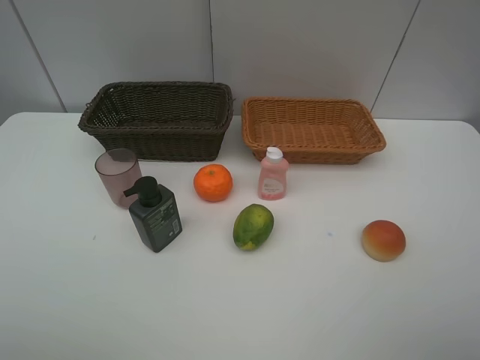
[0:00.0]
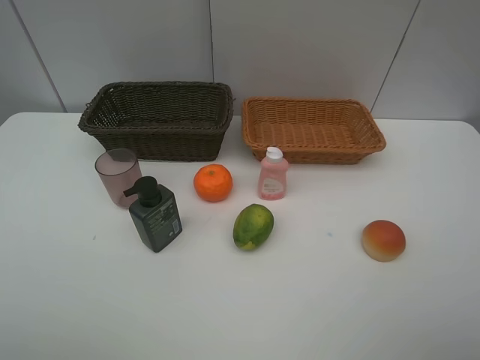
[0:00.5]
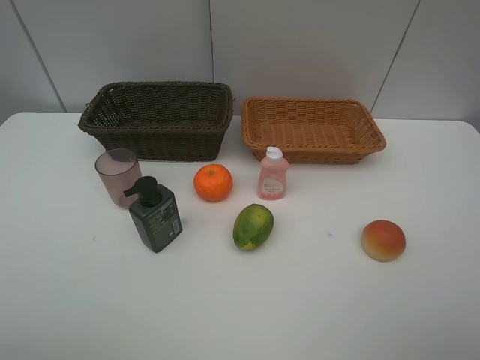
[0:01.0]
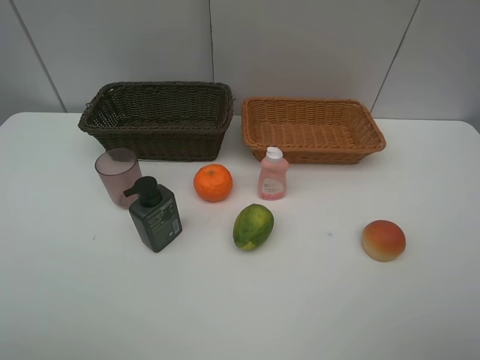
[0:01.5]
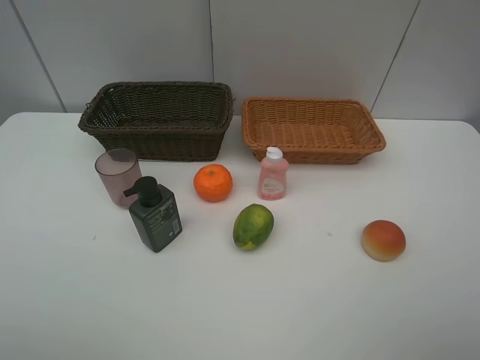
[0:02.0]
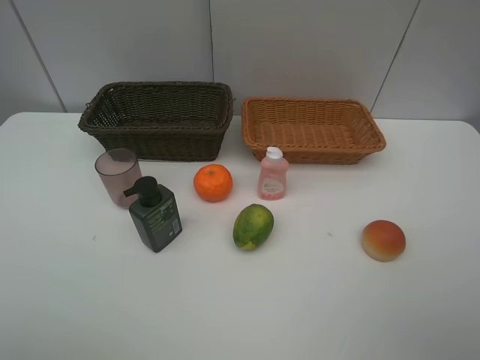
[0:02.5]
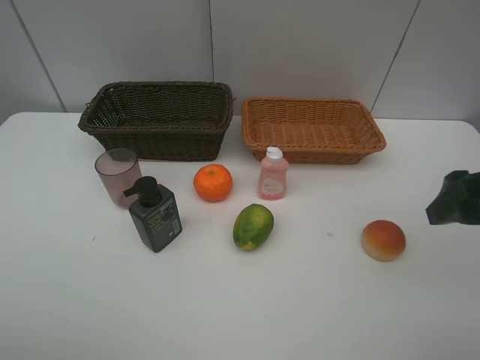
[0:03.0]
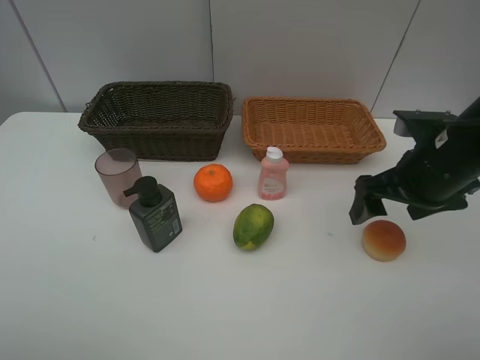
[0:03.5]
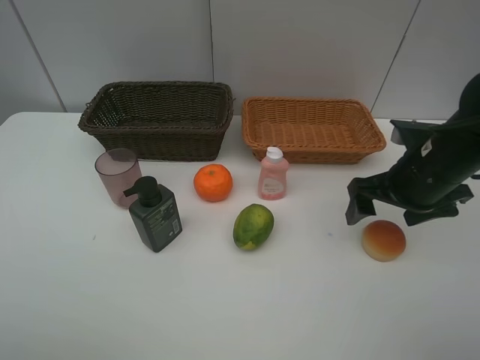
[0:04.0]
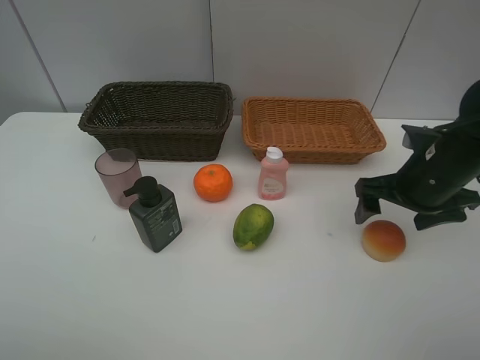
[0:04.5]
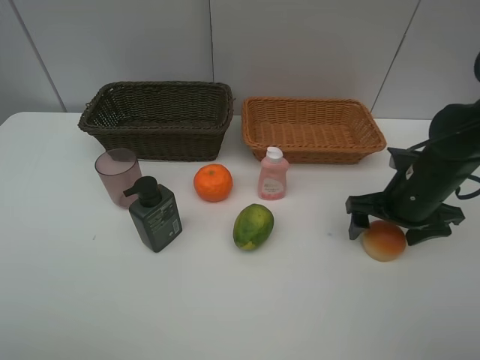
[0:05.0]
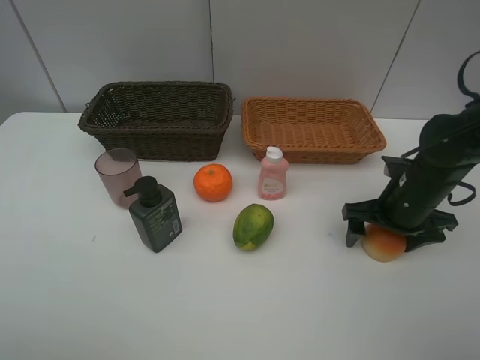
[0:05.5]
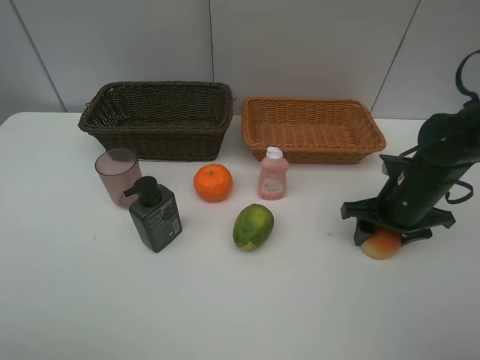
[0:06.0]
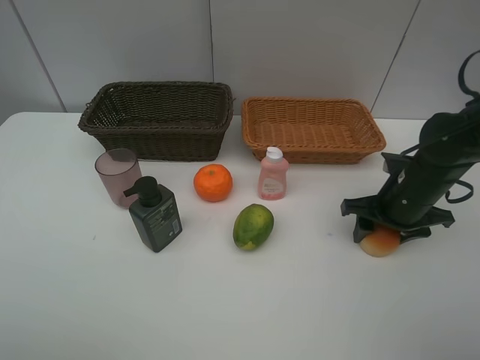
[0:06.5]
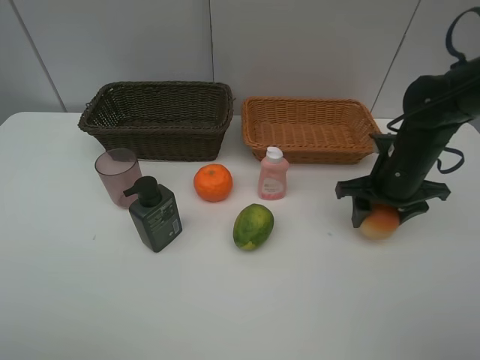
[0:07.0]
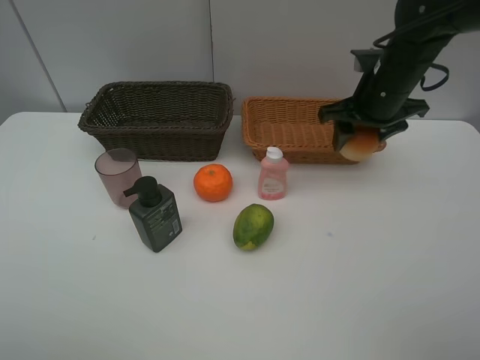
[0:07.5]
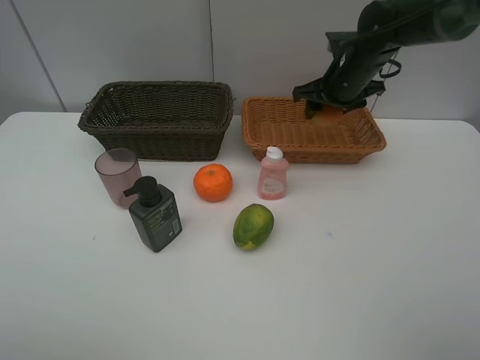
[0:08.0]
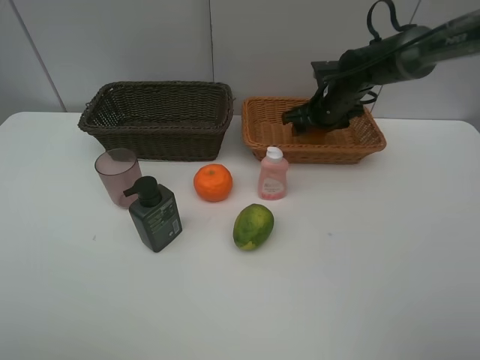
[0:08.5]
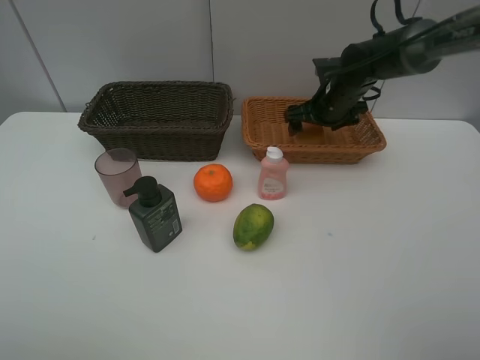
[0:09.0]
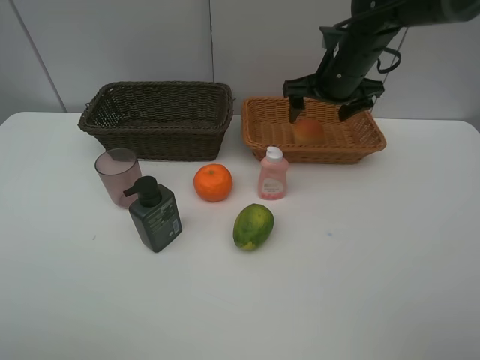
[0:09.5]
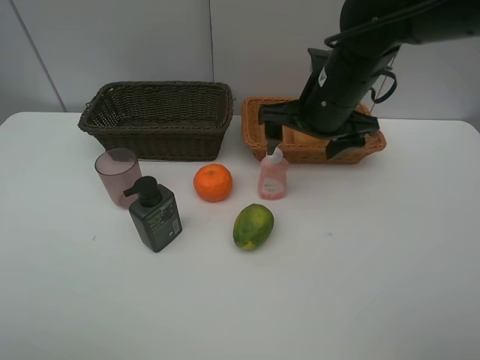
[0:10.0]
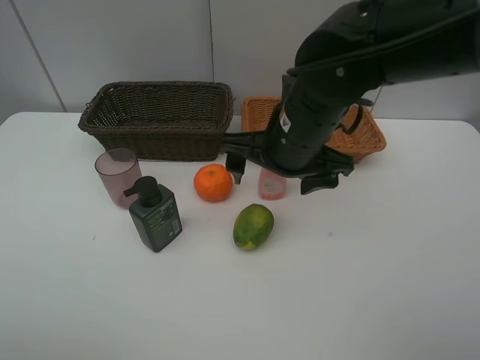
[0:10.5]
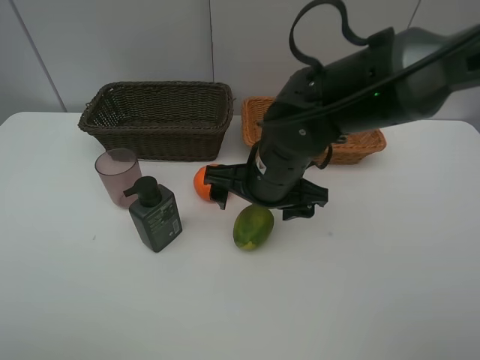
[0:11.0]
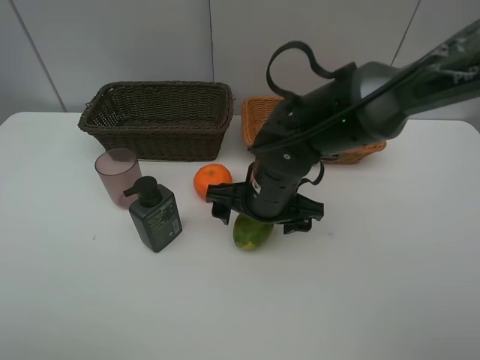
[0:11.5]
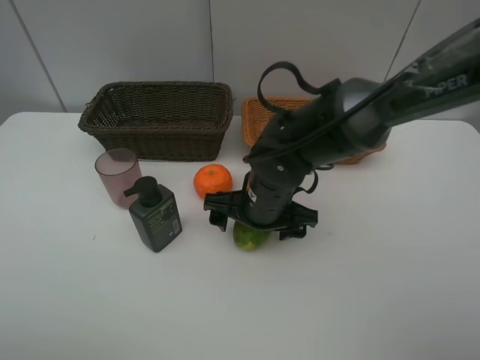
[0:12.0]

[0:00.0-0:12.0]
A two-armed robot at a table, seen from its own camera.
Task of the whole recording: place multiple objects separately in different baskets.
0:00.0 to 0:02.0: Both grippers stay put.
0:02.0 to 0:04.0: The right gripper goes approximately 30 cm forward and downward.
0:04.0 to 0:06.0: The right gripper is displaced downward by some 5 cm, and closes.
0:06.0 to 0:08.0: The right gripper shifts about 20 cm forward and upward.
0:08.0 to 0:10.0: The right gripper travels backward and to the left by approximately 15 cm, and opens.
0:10.0 to 0:12.0: The right gripper shifts some 15 cm downward and to the left.

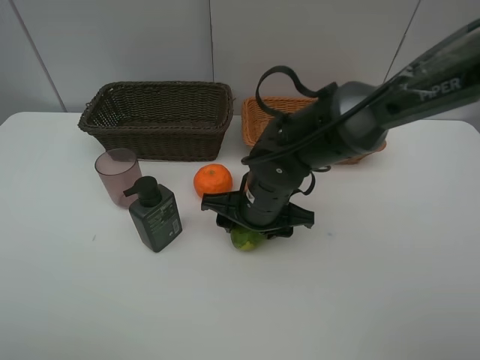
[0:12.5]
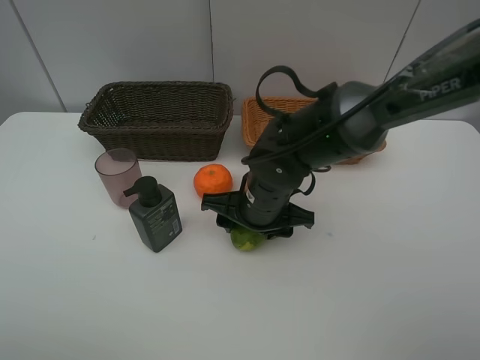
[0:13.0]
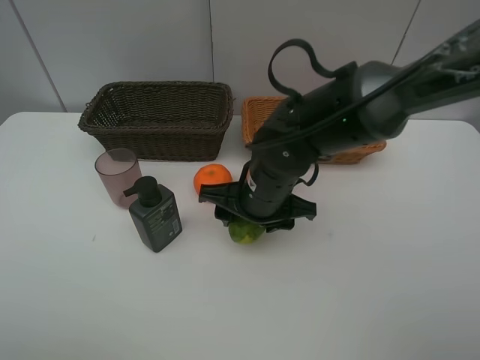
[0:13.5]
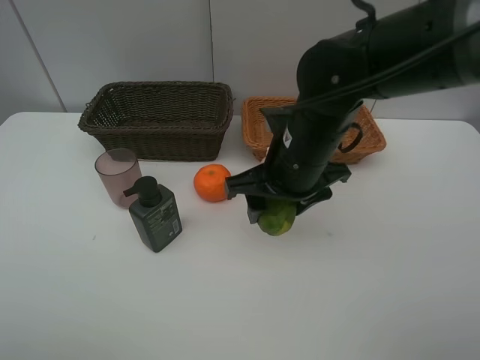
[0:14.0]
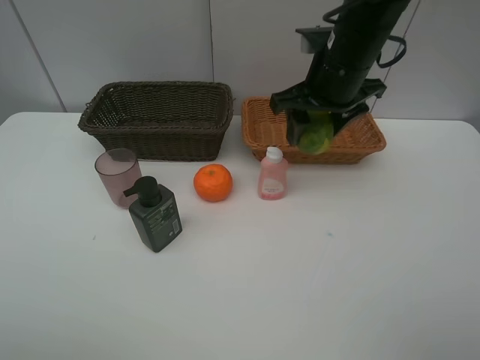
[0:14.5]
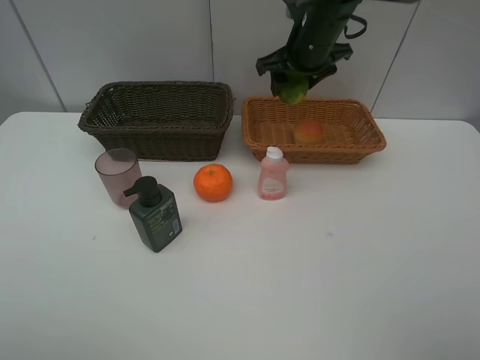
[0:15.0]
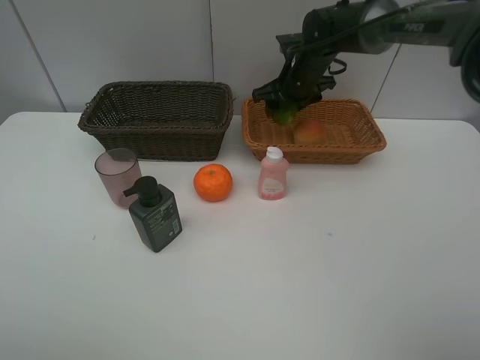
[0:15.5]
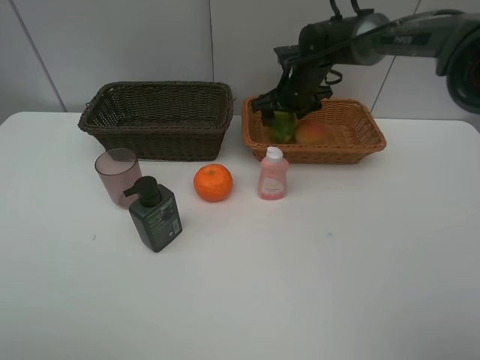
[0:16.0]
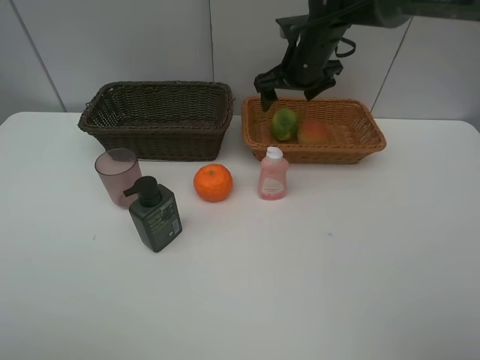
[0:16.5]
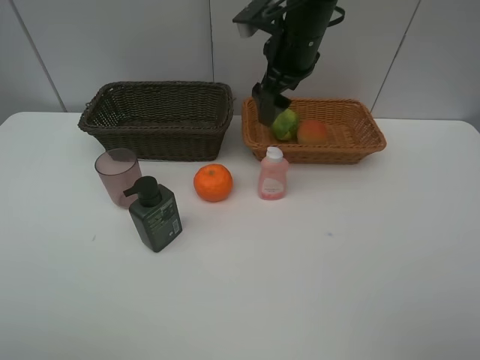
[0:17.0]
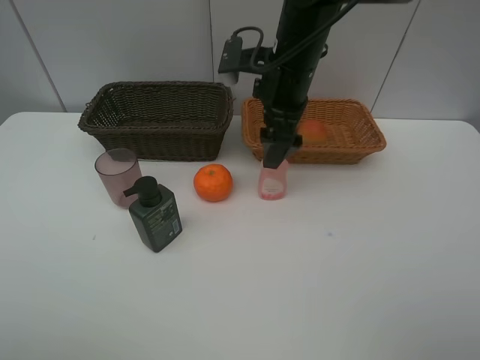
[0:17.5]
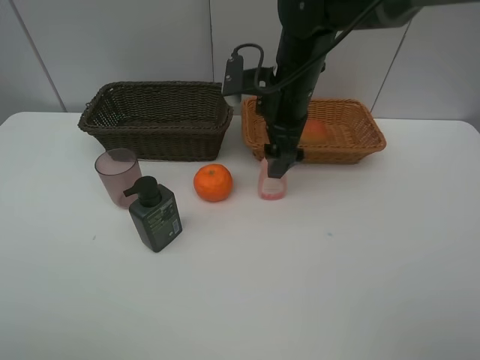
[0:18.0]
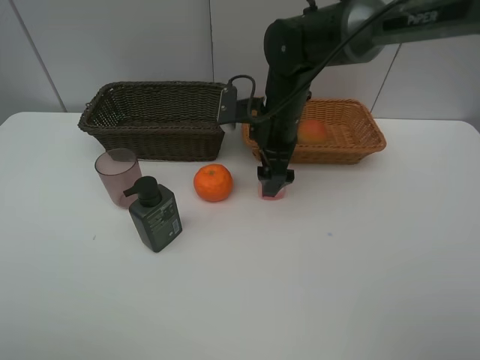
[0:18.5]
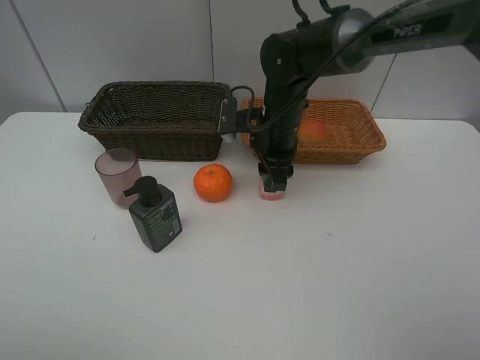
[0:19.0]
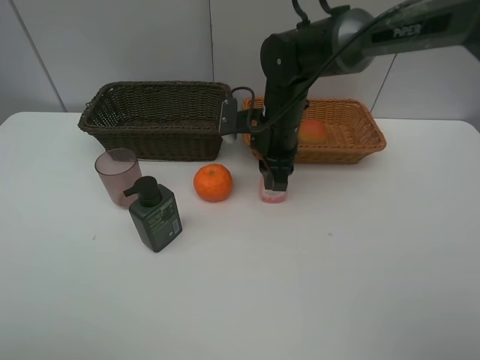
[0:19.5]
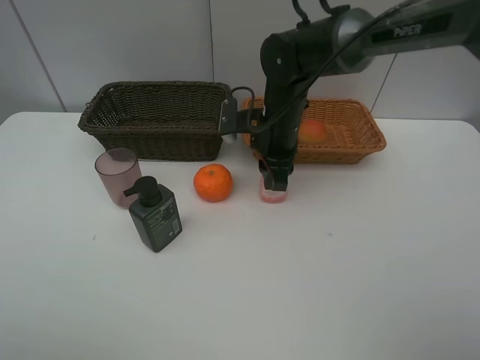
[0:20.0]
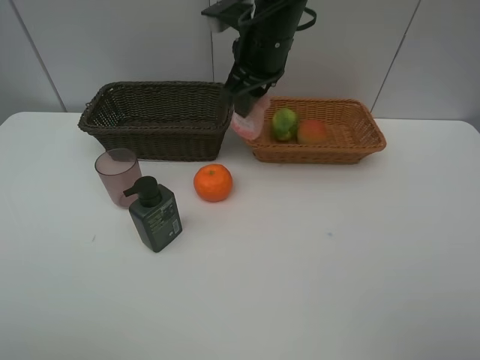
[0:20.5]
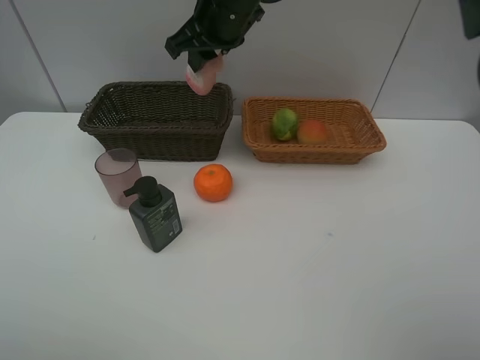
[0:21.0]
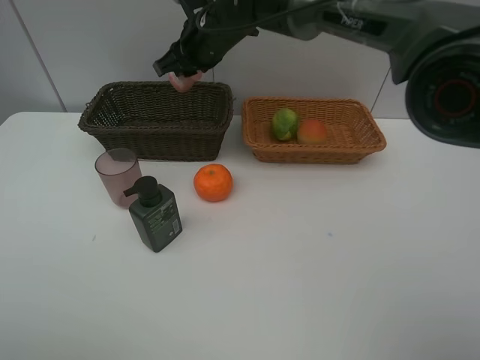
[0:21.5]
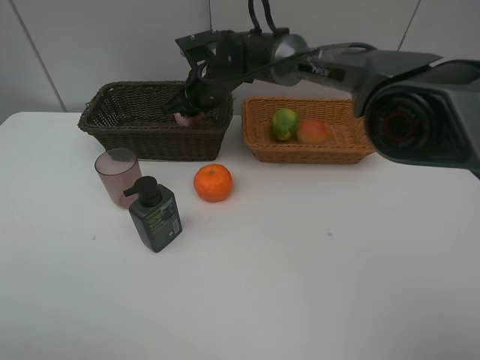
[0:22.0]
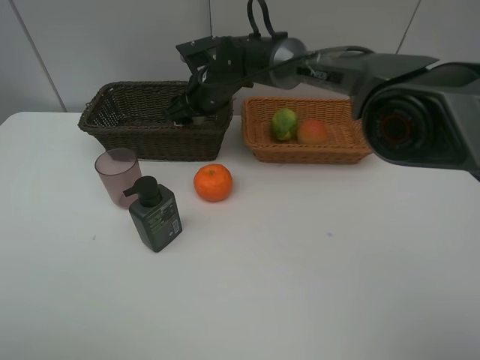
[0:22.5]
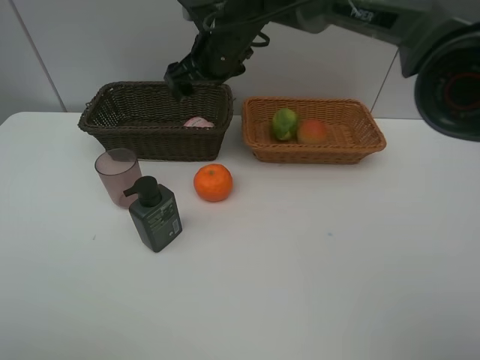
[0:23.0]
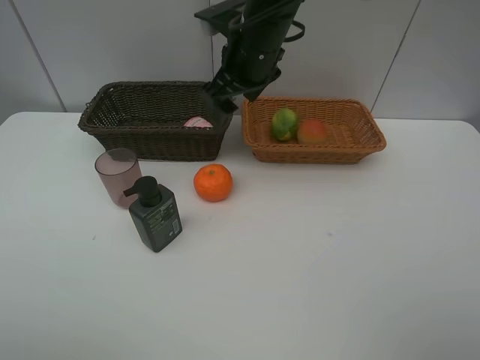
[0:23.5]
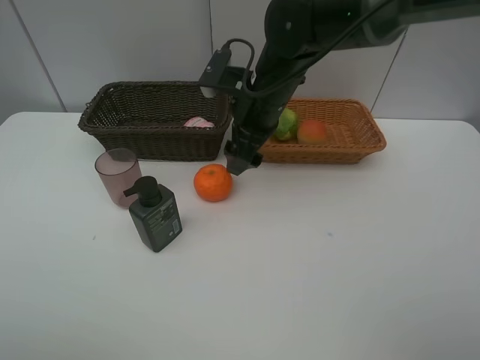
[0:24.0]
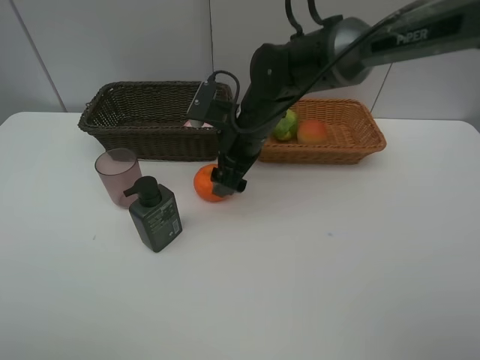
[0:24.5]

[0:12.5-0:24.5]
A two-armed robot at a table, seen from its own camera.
Task of the whole recording: place multiple objects separately in different baskets.
0:12.5 to 0:14.5: The right gripper heads upward, to the right and forward, covering some 20 cm.
0:14.5 to 0:16.5: The right gripper is displaced forward by roughly 10 cm, and opens its fingers.
0:16.5 to 0:18.5: The right gripper moves backward and downward, roughly 10 cm.
0:18.5 to 0:20.5: The right gripper is displaced upward by approximately 10 cm, and closes its fingers.
0:20.5 to 0:22.5: The right gripper moves downward, forward and to the left, roughly 15 cm, and opens up.
0:22.5 to 0:24.5: The right gripper shifts some 10 cm backward and to the right.

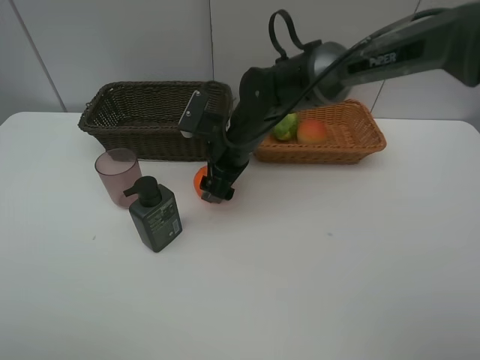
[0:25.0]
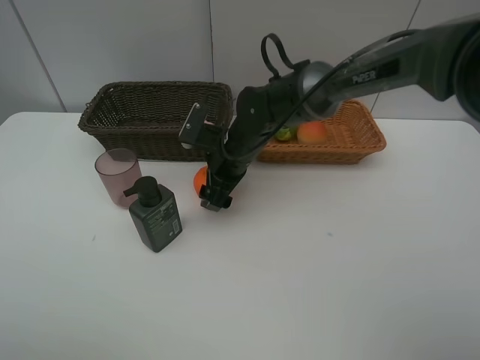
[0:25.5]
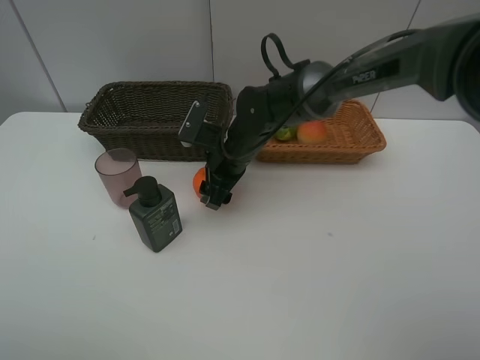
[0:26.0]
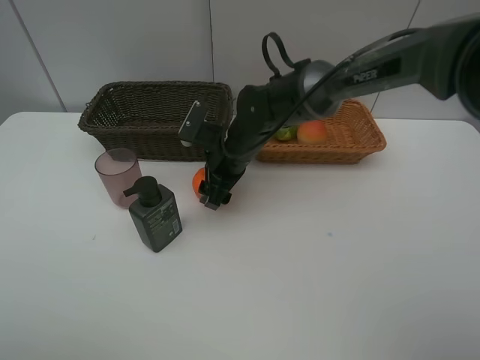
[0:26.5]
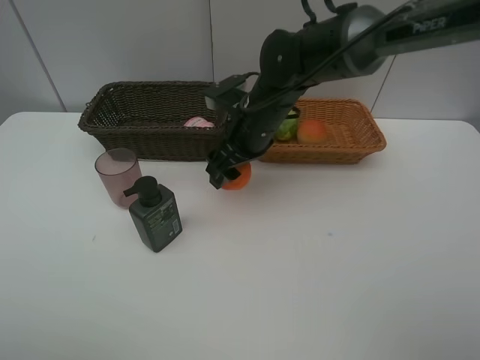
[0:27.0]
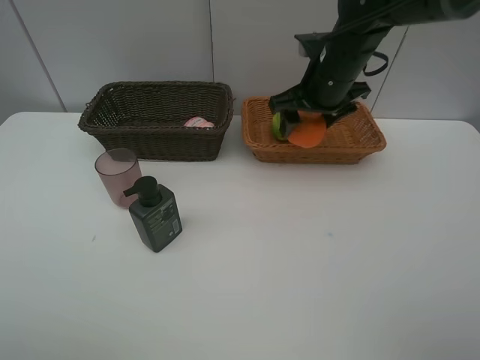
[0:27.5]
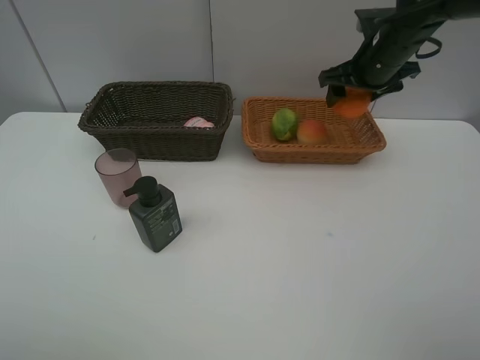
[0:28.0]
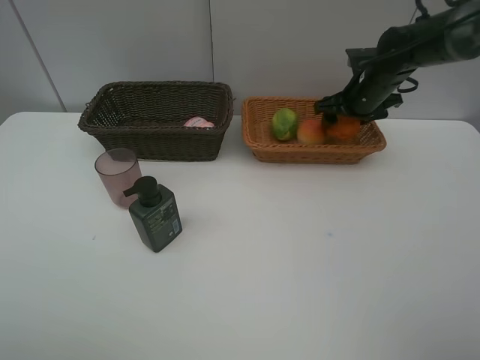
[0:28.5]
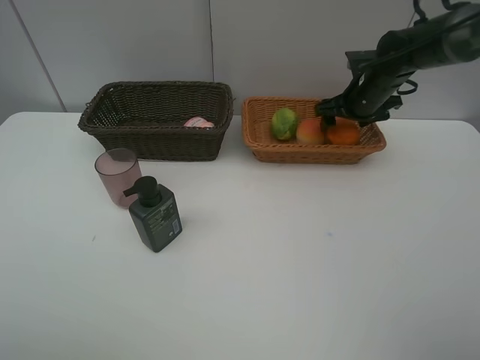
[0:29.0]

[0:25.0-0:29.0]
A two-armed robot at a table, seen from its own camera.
Task of the whole recording: place multiple objects separately in different baskets.
0:25.0 to 0:27.0: The right gripper changes place by about 5 cm.
0:27.0 to 0:29.0: The right gripper travels to the right and forward by approximately 20 cm.
